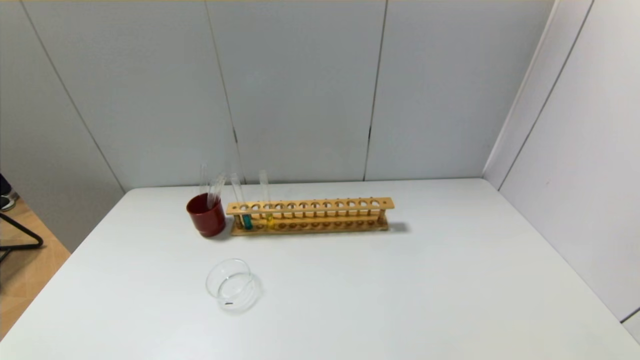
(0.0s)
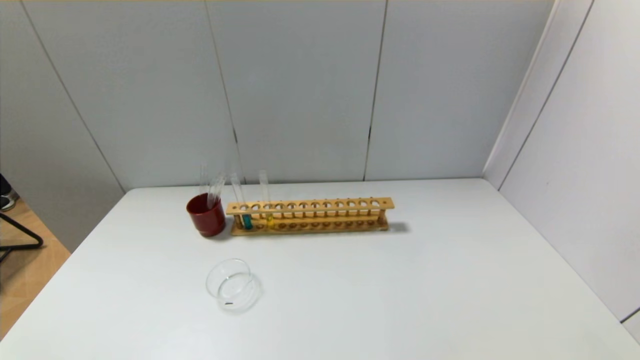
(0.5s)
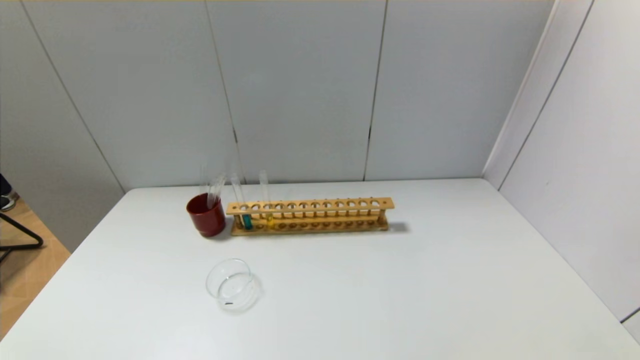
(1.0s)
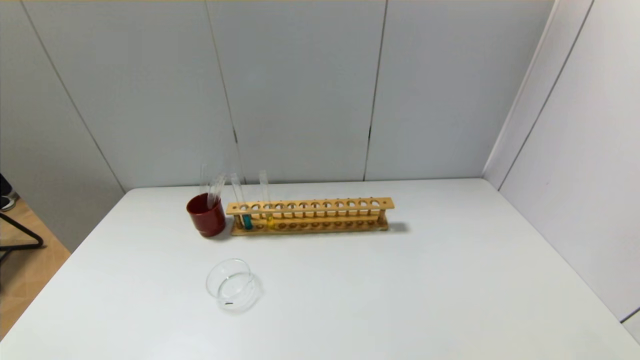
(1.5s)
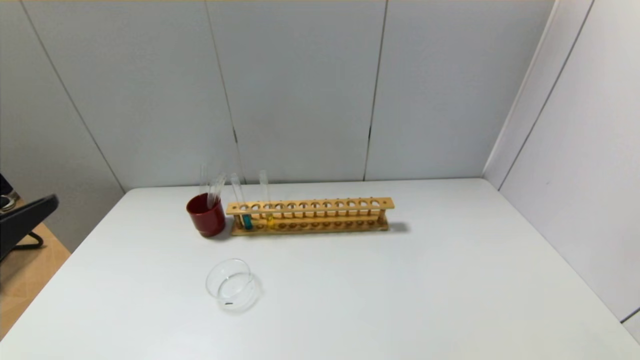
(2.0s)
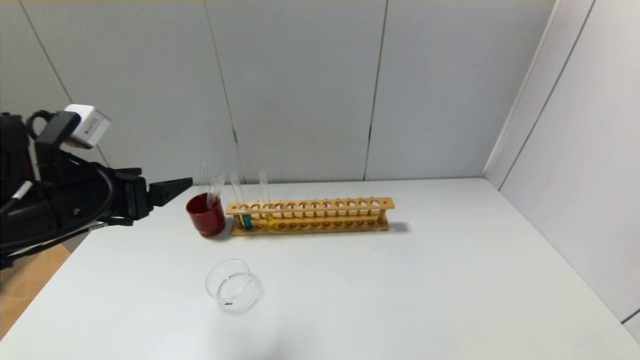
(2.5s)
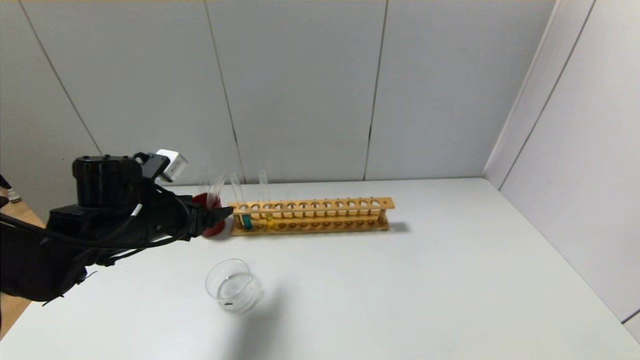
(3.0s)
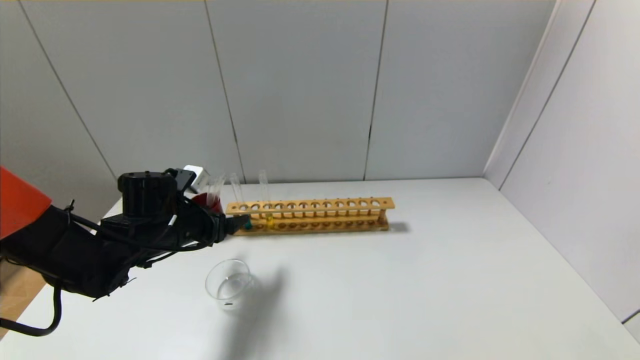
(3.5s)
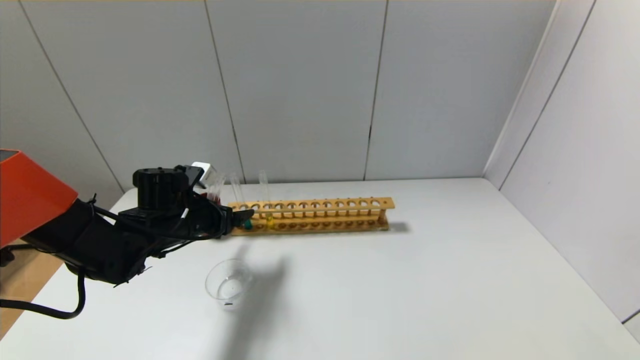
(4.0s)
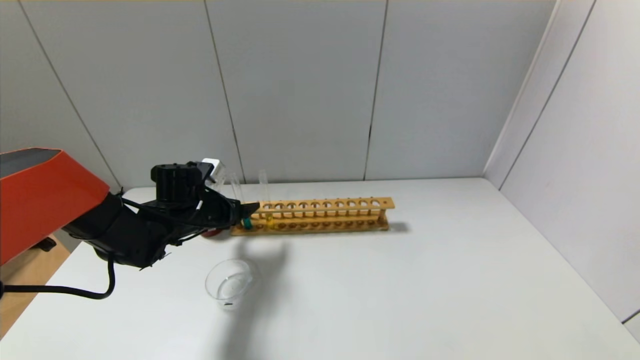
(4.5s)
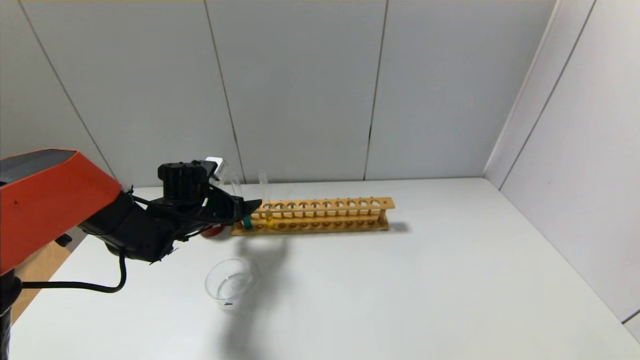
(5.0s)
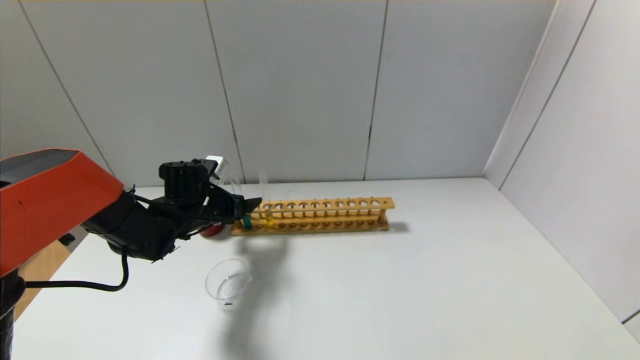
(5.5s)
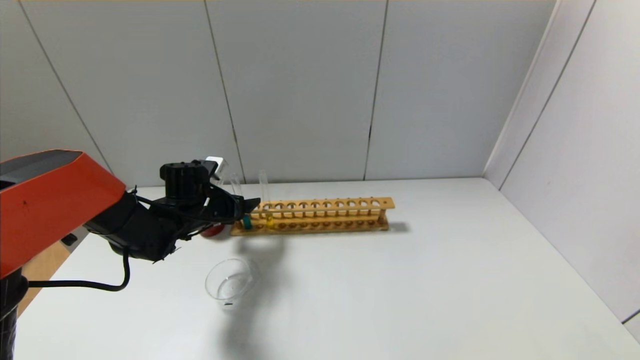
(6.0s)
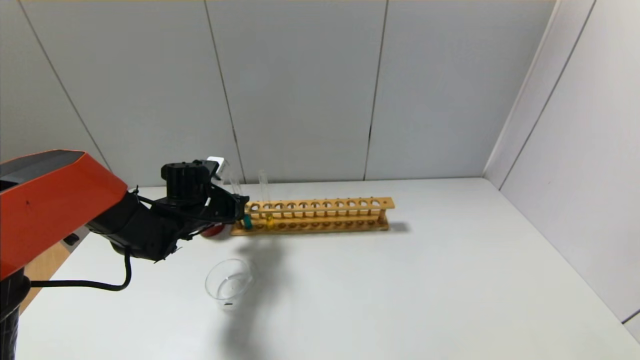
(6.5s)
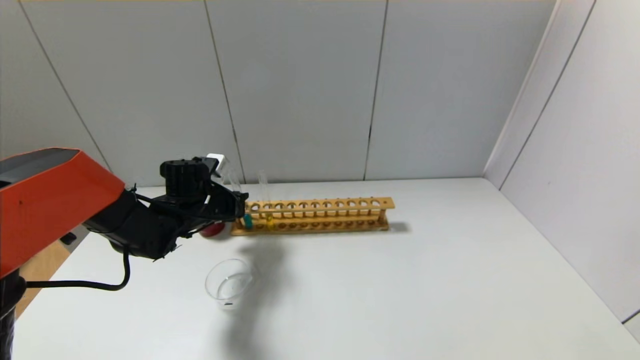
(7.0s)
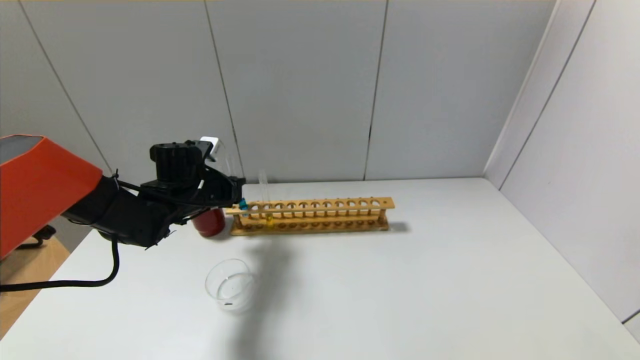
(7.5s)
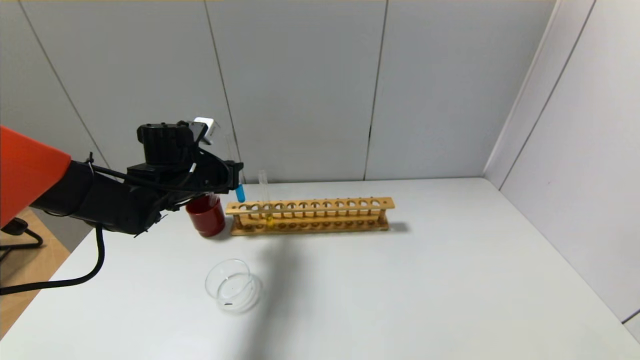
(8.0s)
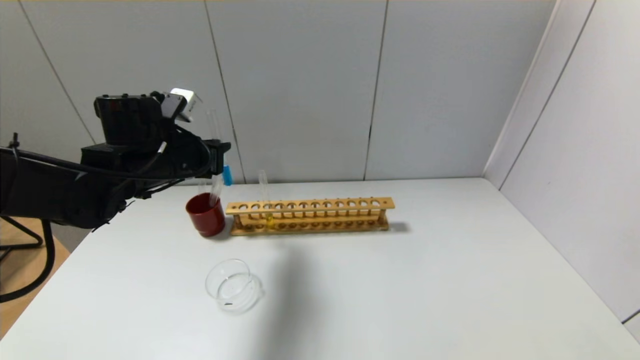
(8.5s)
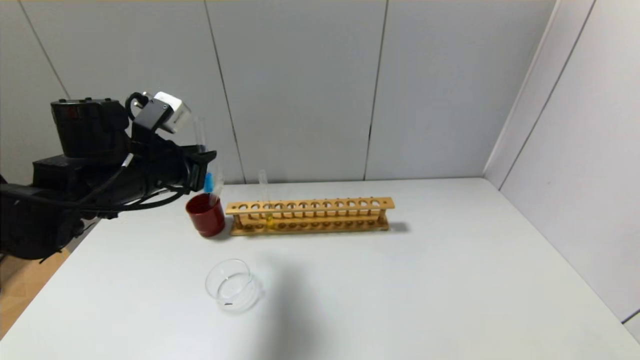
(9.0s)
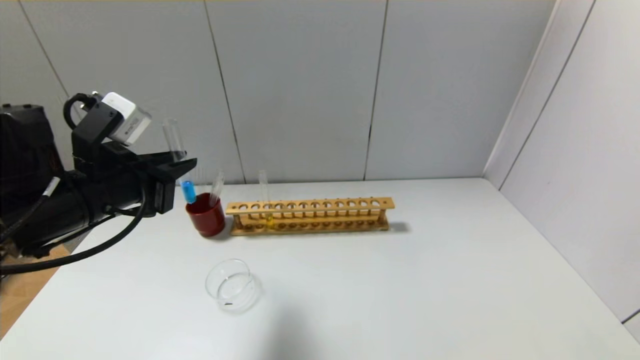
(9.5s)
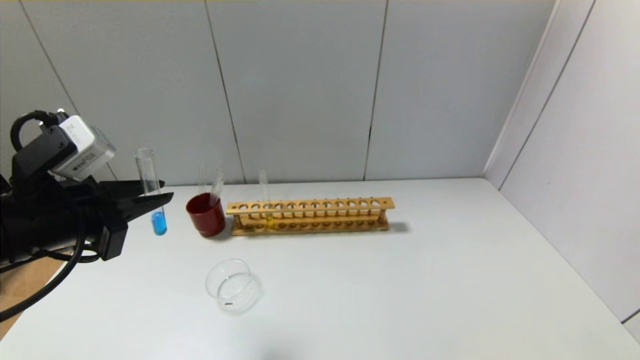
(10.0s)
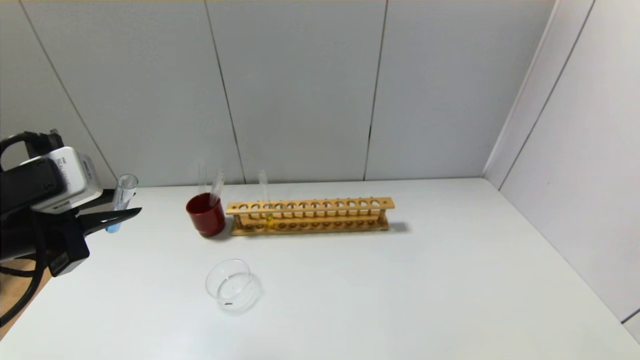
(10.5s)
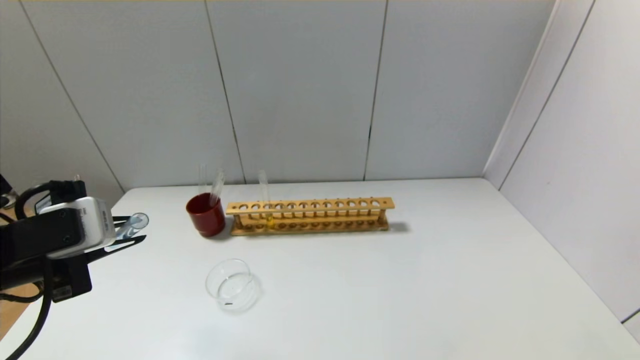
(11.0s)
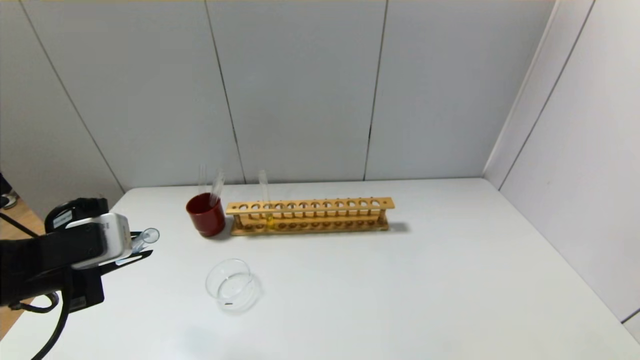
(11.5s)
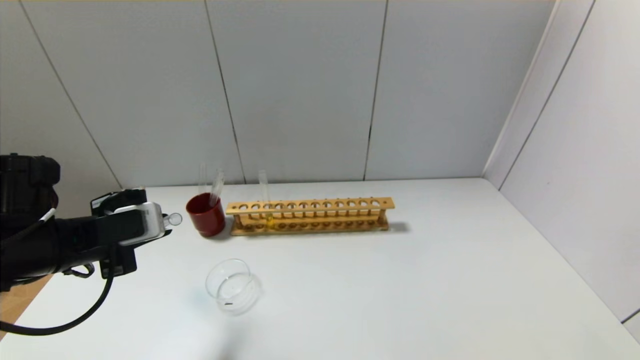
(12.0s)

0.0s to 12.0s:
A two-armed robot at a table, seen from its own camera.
Step, 0.0s to 6.5s: Grasp the blue reagent with the left gripper.
0.0s to 2.0s: The left gripper goes roughly 20 cm upward and forward.
2.0s to 4.0s: The left gripper is displaced forward and downward by about 30 cm.
4.0s to 6.0s: The left gripper shifts roughly 5 cm forward.
6.0s to 8.0s: The left gripper heads upward, covering about 10 cm, and closes.
8.0s to 10.0s: The left gripper heads backward, covering approximately 20 cm.
10.0s to 12.0s: The left gripper shifts roughly 5 cm downward.

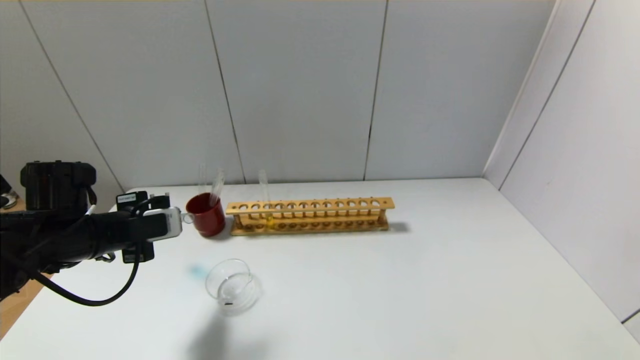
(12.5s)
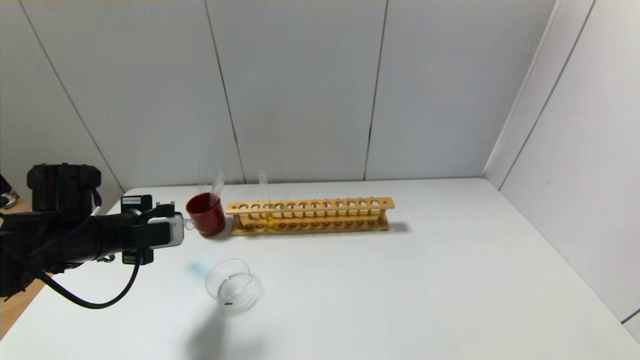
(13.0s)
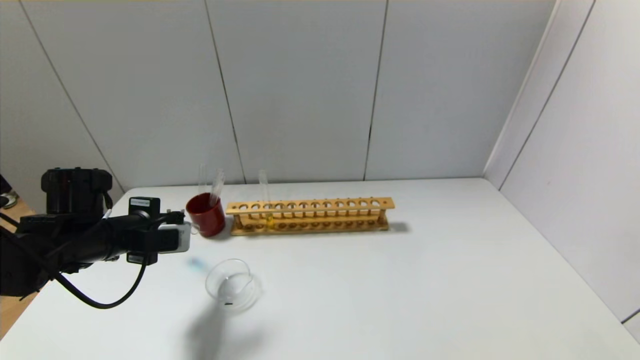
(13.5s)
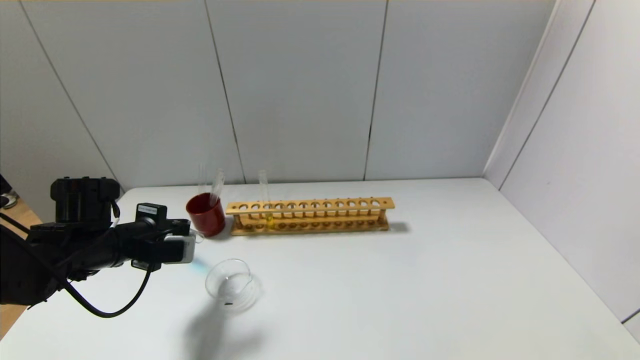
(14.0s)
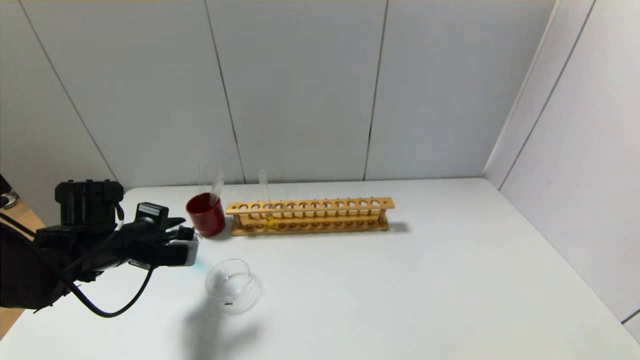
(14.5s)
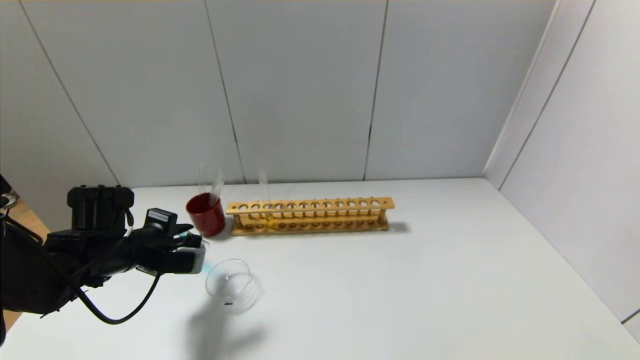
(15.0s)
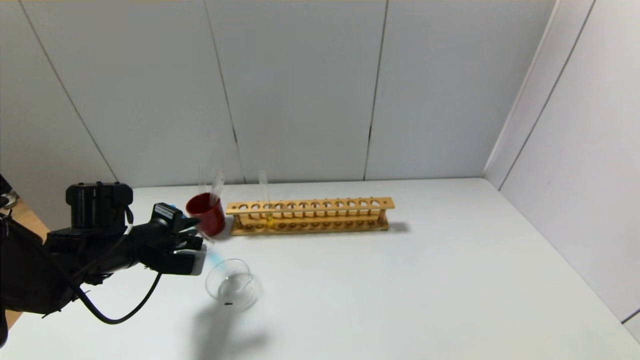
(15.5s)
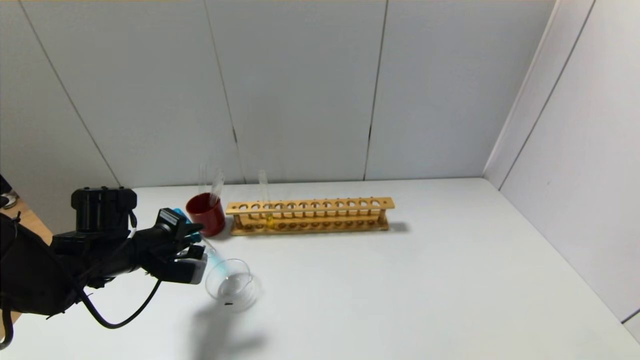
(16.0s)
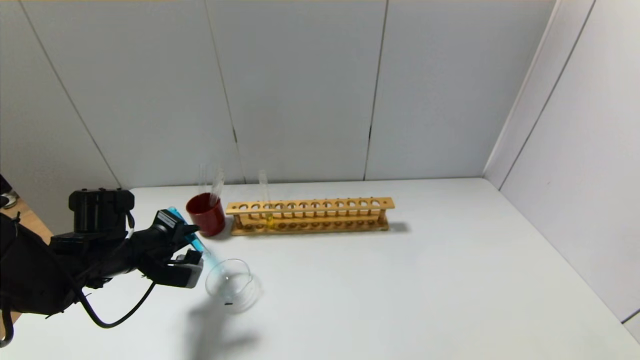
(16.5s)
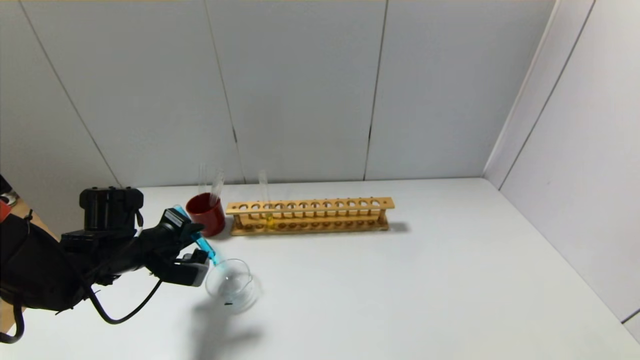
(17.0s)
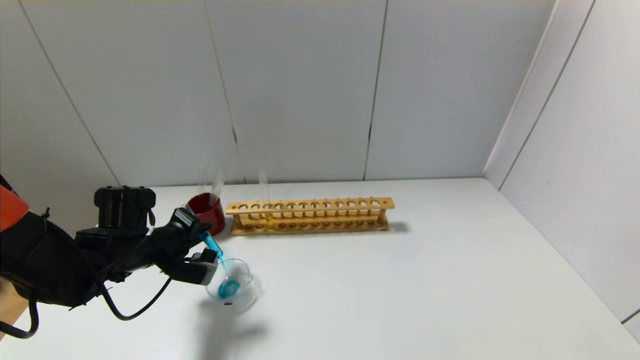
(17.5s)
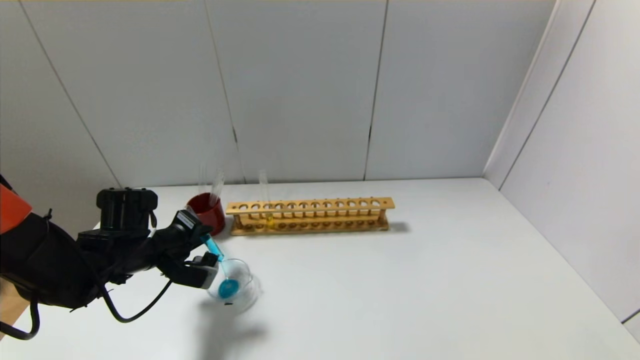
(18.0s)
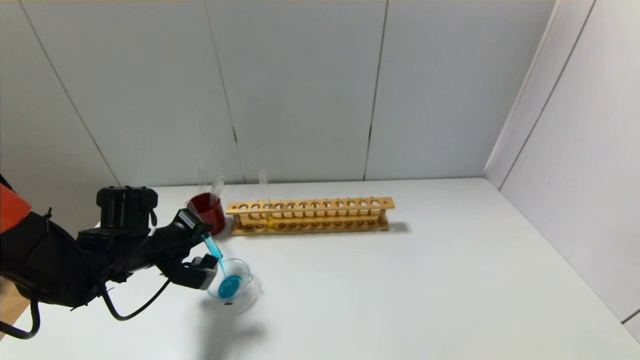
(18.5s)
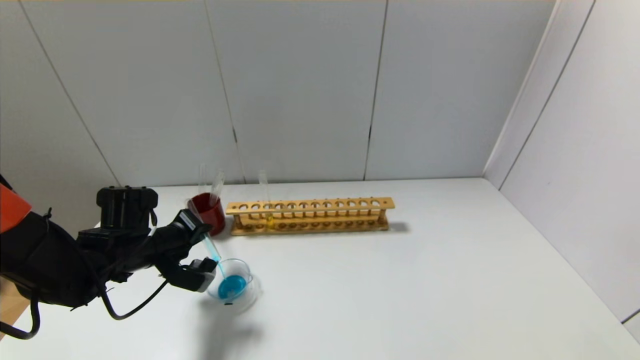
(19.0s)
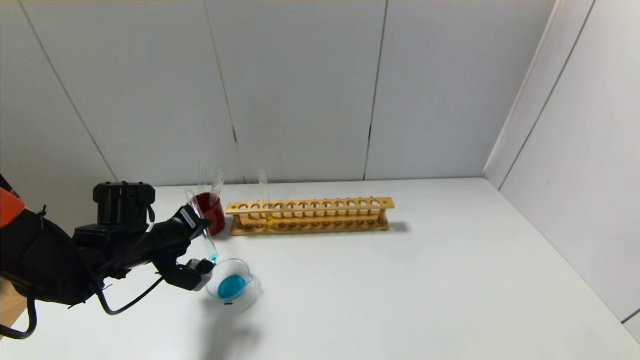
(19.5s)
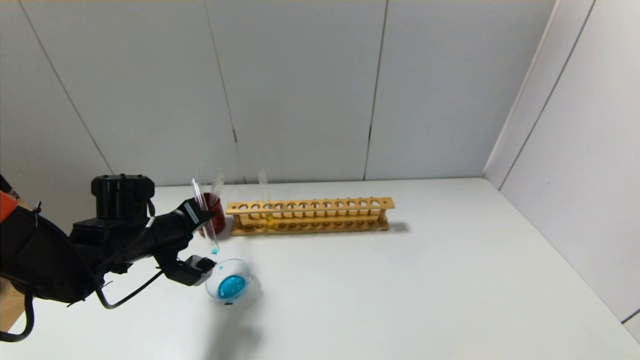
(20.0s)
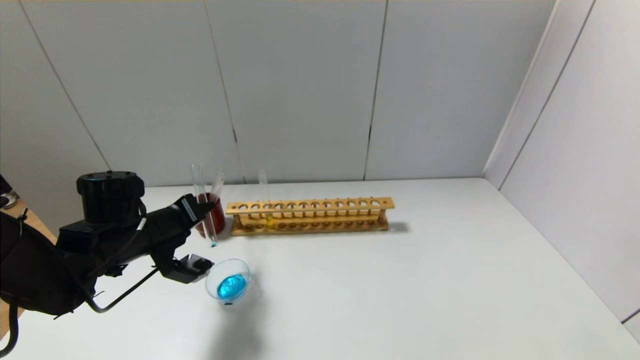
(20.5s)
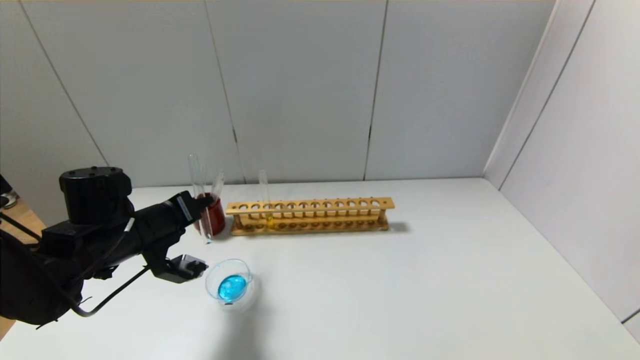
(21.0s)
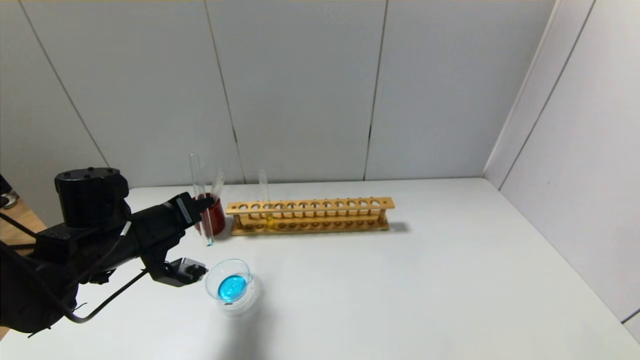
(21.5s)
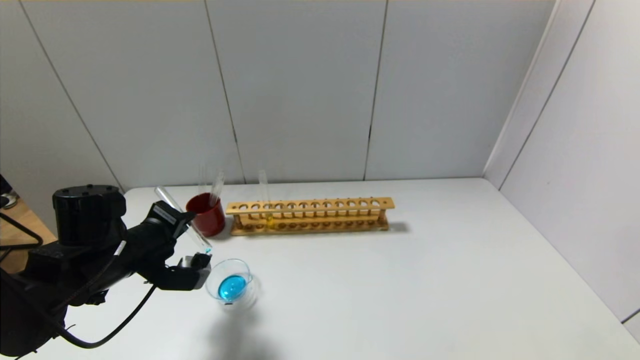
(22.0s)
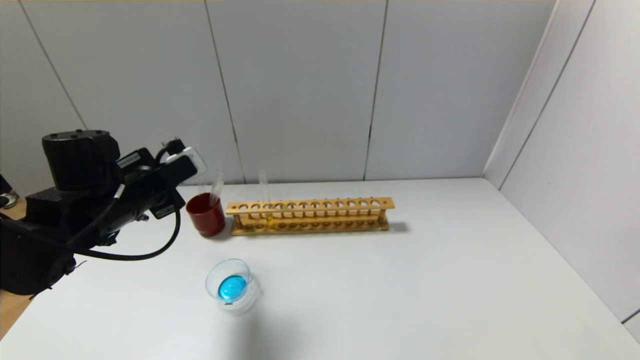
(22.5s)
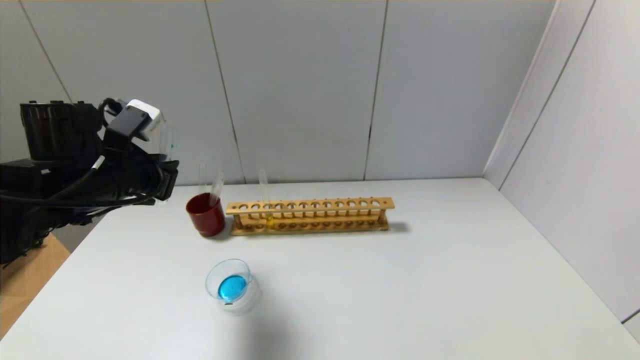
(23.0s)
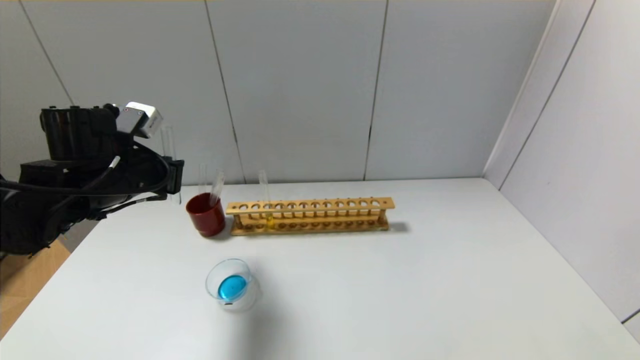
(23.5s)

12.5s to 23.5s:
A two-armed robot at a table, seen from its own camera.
Step, 12.5s to 21.5s: Pour the blue reagent into the graduated cylinder with the left gripper.
14.5s to 18.0s: The grippers make only small movements.
20.0s to 21.5s: The grippers make only small movements.
21.5s to 23.5s: The left gripper heads upward, covering roughly 5 cm.
